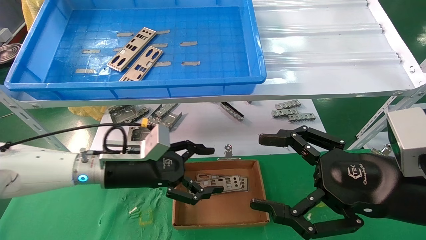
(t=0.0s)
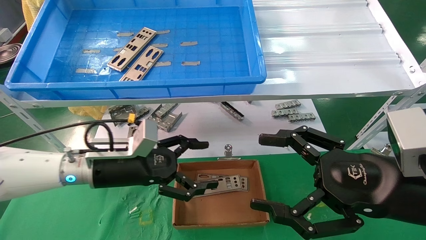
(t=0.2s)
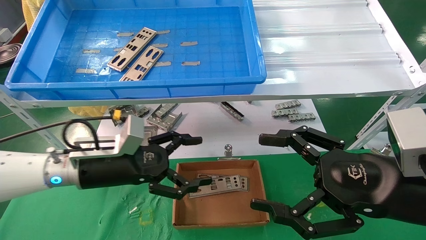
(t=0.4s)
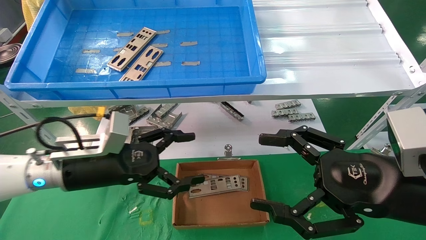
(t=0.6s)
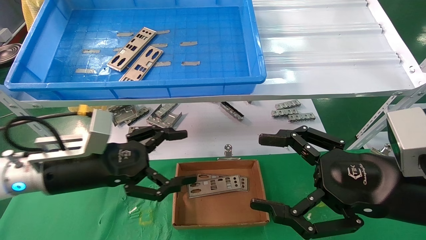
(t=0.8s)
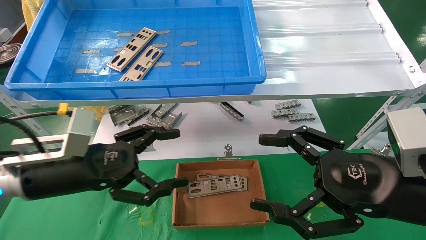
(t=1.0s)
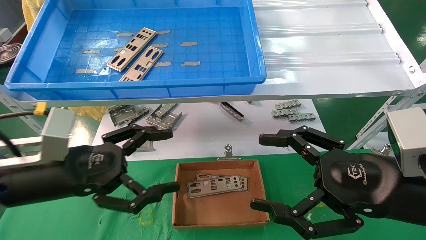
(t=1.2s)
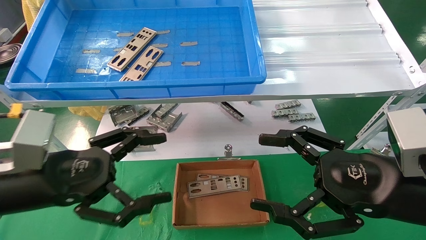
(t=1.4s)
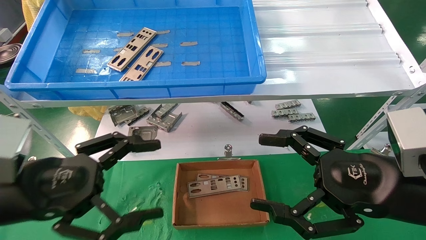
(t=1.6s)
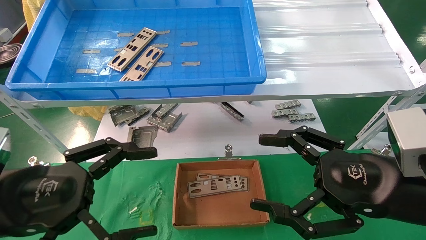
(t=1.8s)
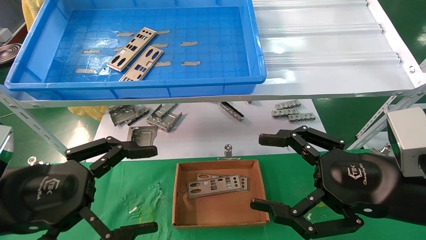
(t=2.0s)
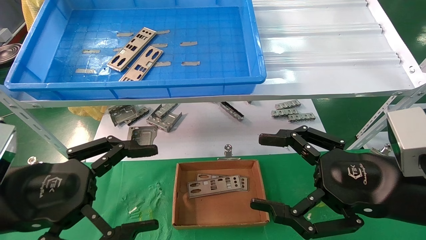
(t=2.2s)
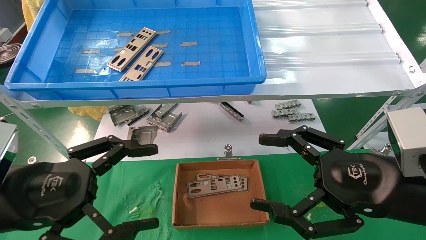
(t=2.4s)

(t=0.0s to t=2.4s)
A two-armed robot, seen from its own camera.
Task of the whole recording: pick up the parts on the tray and put them in the cardboard box.
t=0.0s - t=1.2s: The left gripper is displaced backward and to the left by some 15 cm.
t=1.2s - t=2.4s: The left gripper is displaced backward by approximately 5 cm.
